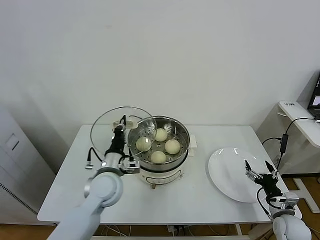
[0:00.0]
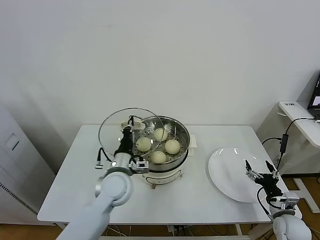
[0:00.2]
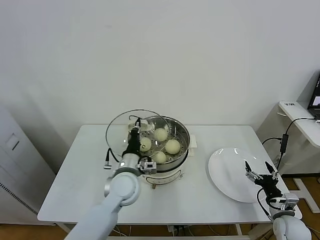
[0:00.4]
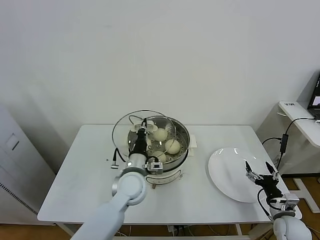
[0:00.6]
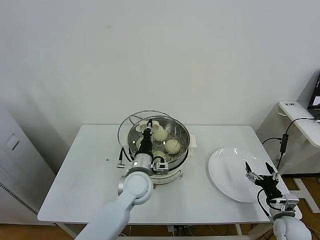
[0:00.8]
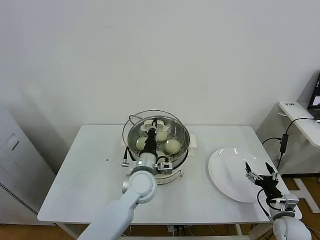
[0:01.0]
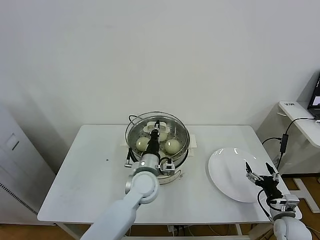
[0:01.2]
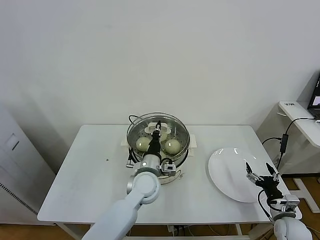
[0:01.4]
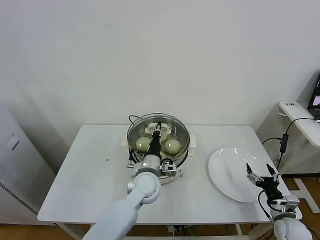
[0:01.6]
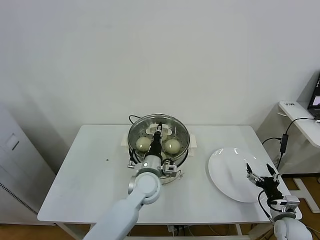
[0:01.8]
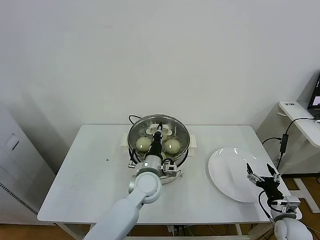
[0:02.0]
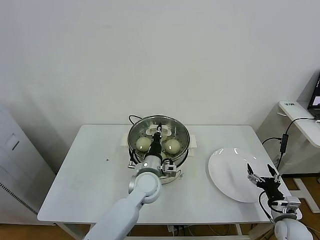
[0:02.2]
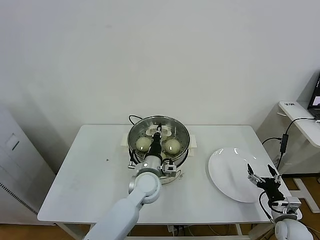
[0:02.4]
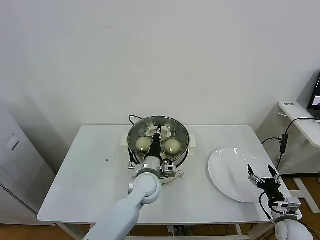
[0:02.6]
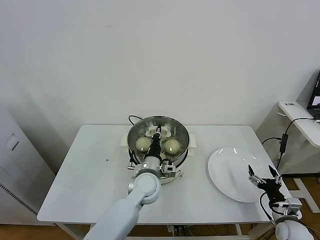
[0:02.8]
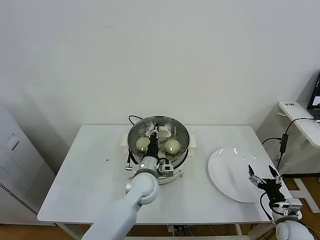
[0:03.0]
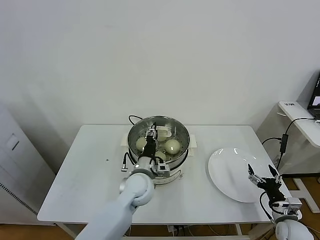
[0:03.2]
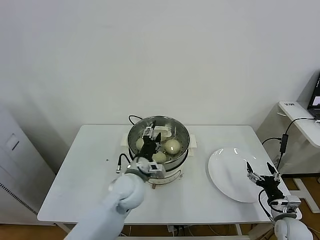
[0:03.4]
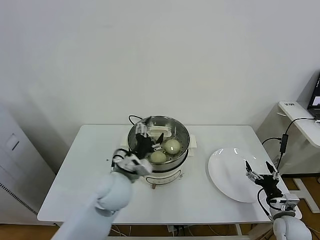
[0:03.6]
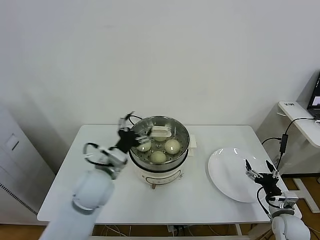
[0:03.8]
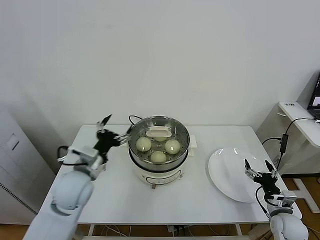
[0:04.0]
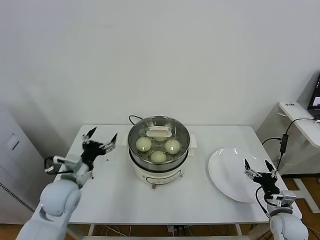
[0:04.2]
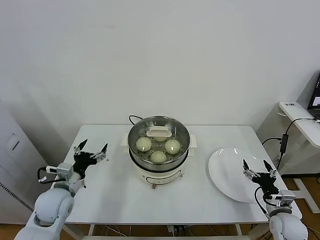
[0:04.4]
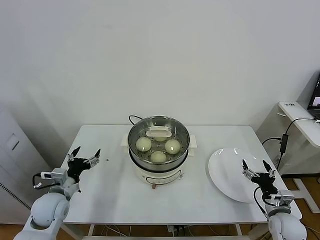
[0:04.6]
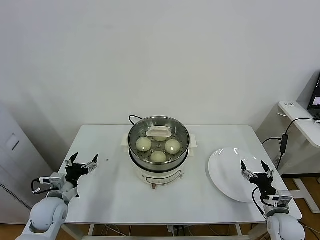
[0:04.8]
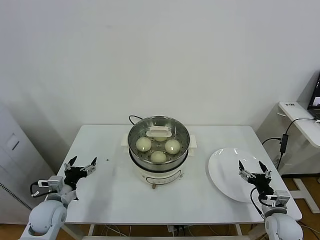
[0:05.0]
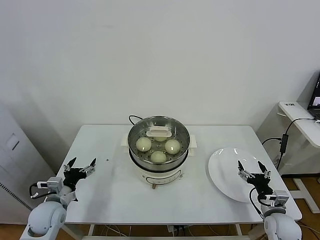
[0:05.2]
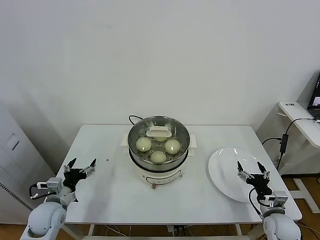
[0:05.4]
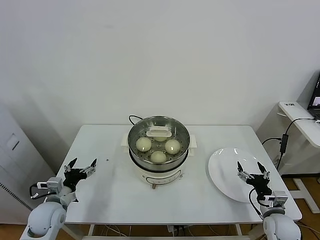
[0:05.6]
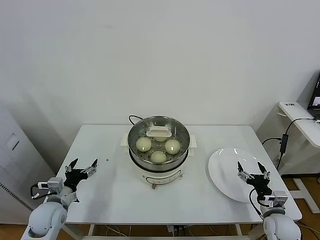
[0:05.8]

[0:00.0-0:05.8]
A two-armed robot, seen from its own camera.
Task of the whole recording: take steamed baozi put them in steamer.
Step, 0.0 to 3.6 s: Place the pot lid on the steamer with left gripper.
0.0 to 1.4 s: The left gripper moves to the right, about 10 cm.
1.4 to 2.8 s: The grippers make only small movements.
2.8 to 4.4 s: The left gripper shifts about 25 cm to the left, and opens its fingers.
4.4 to 5.8 s: The left gripper travels downward by some 5 cm.

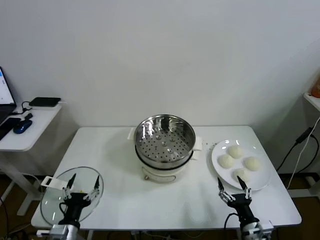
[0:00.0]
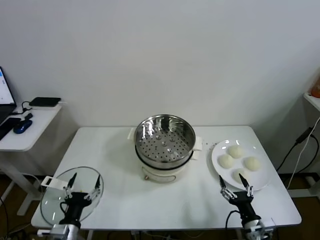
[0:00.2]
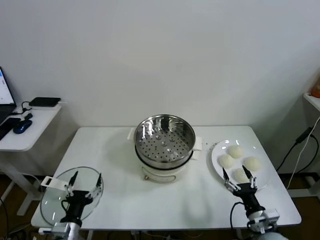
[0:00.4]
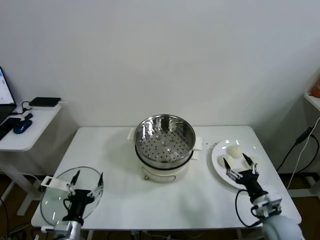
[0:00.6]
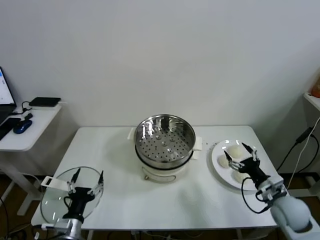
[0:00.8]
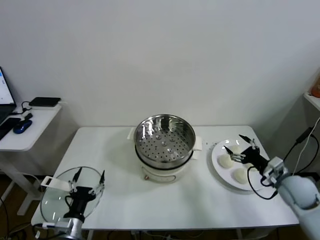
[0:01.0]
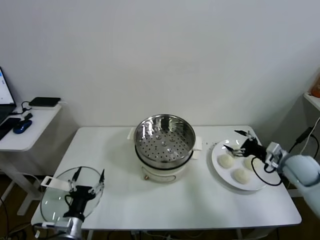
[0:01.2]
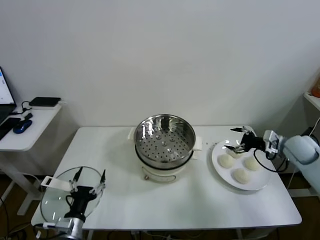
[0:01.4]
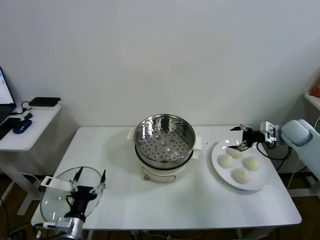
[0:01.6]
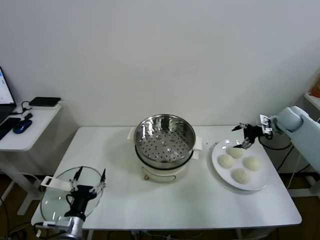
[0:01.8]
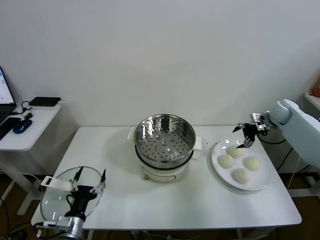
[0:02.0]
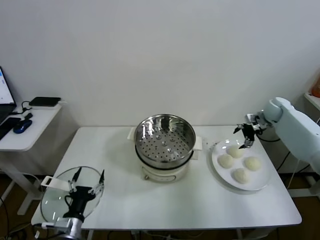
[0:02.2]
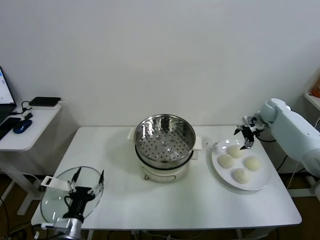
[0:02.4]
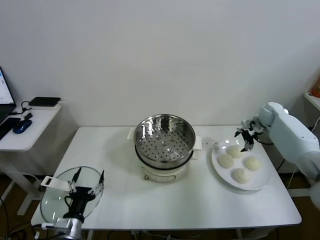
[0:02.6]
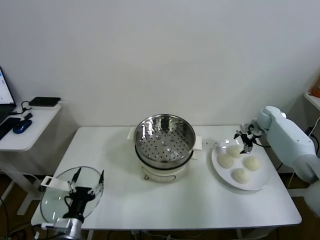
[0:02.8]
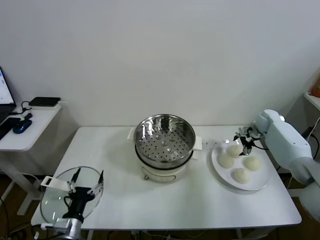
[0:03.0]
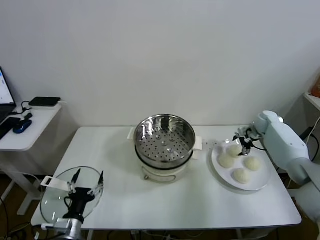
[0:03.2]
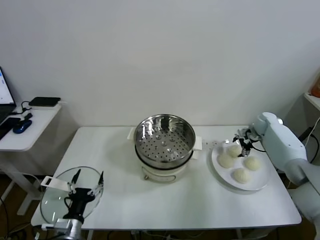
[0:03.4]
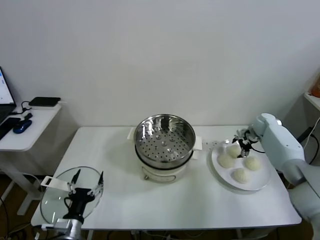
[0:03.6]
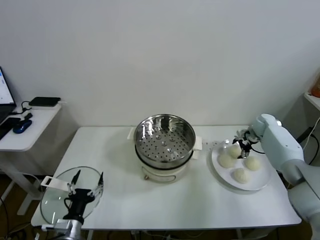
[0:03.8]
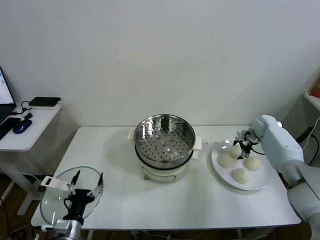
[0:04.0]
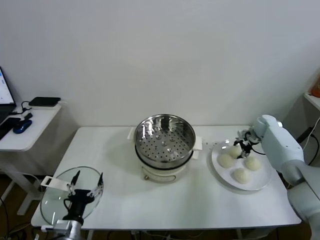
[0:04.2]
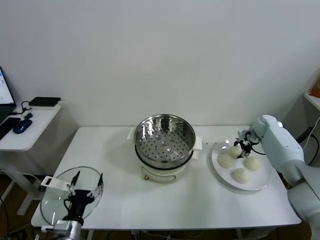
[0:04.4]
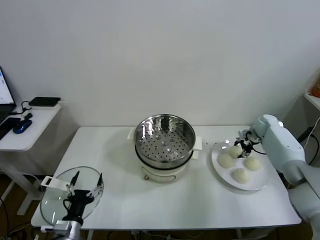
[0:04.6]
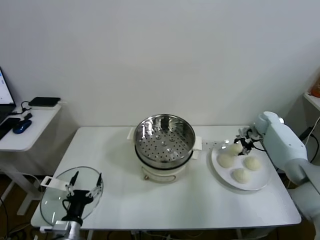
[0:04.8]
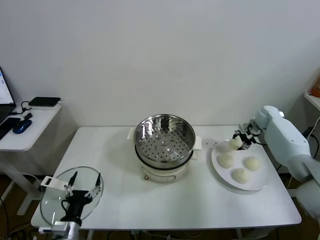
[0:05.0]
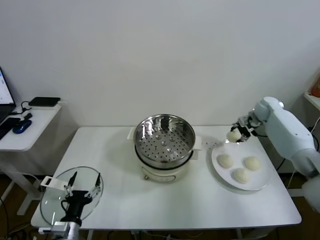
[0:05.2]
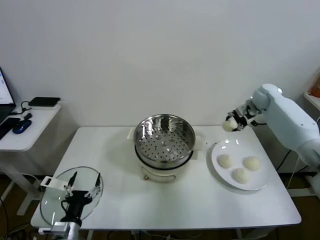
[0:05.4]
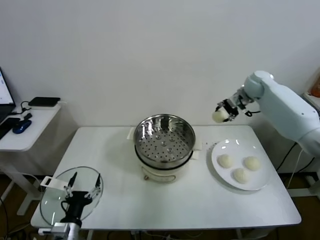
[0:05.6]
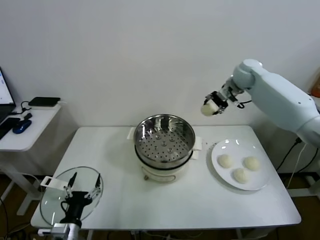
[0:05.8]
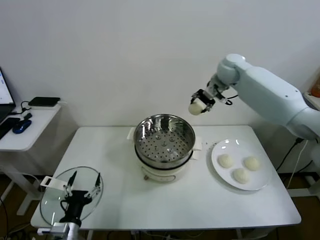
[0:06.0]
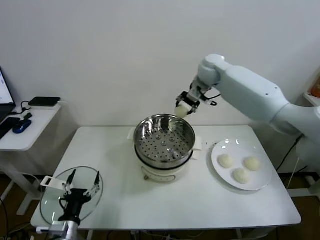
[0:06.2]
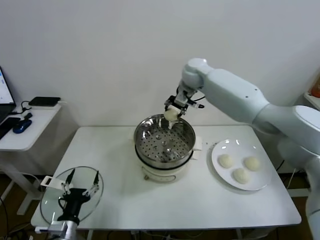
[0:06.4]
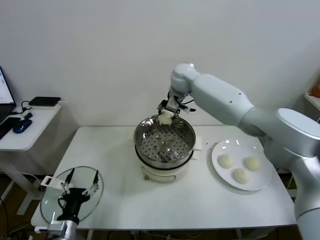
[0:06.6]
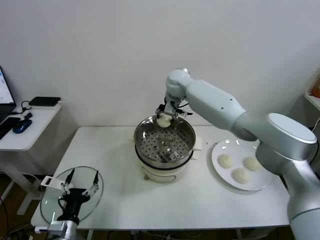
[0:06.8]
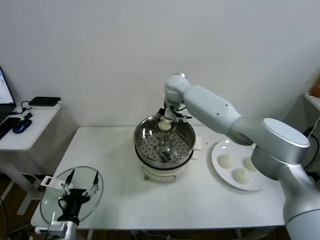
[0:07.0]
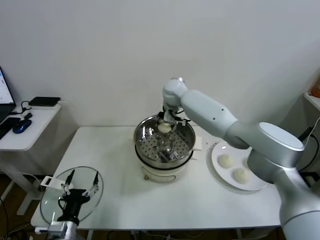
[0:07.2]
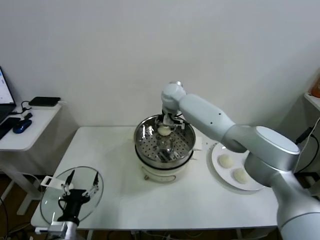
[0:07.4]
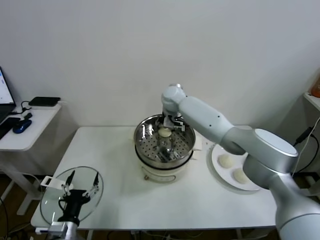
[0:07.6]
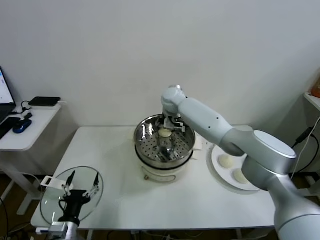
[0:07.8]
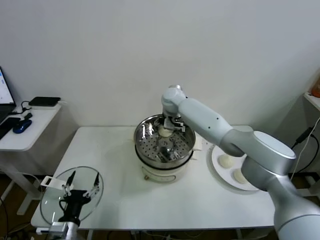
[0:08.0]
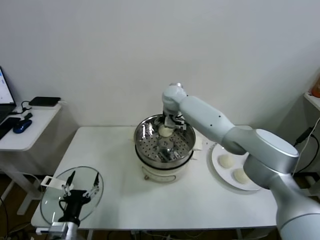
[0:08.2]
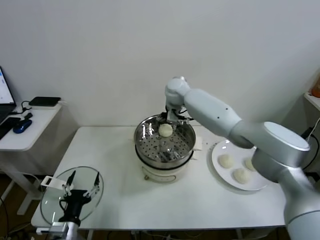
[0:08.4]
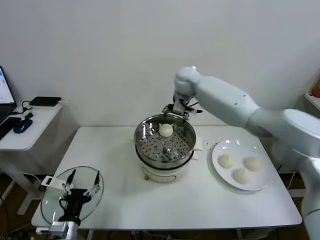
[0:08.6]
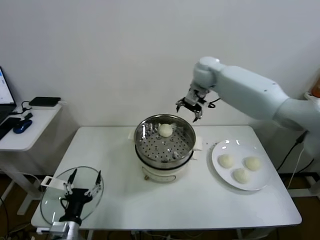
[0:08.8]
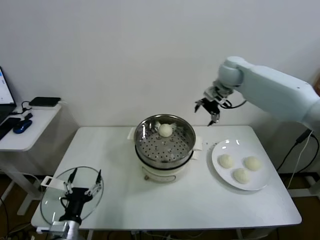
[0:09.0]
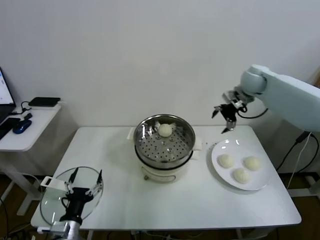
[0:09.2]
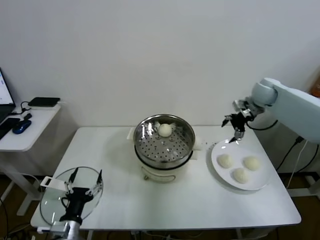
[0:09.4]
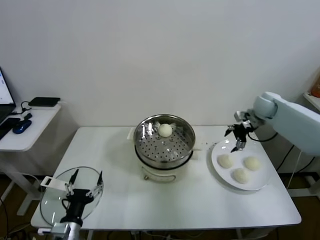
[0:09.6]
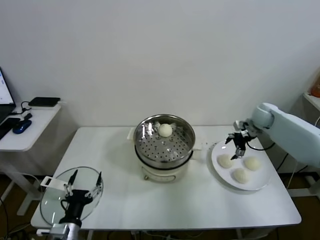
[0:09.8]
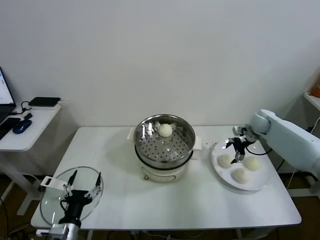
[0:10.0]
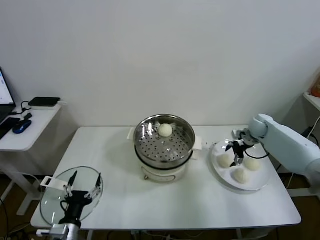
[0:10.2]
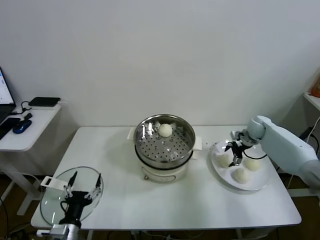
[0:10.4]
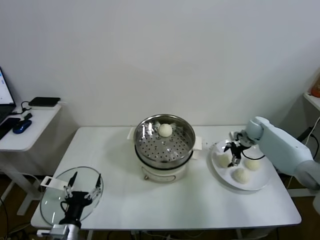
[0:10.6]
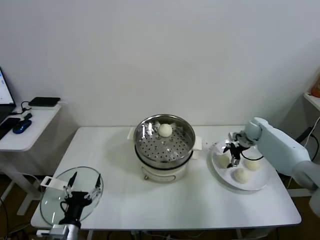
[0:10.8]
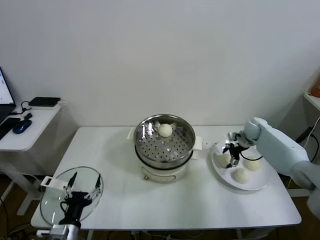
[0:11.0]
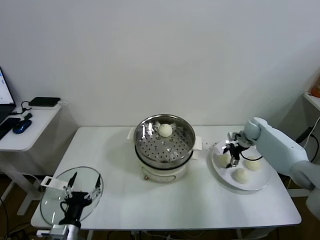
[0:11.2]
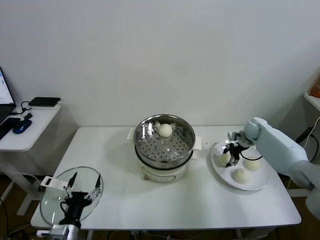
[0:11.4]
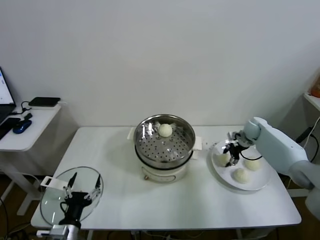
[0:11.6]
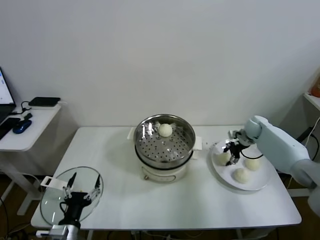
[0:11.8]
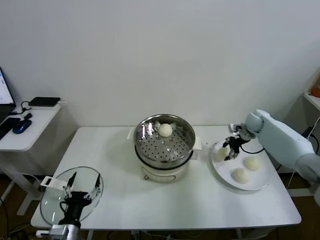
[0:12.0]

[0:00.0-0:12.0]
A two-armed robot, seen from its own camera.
Task of the whole recording: take steamed baozi put them in steamer.
Step, 0.0 to 4.6 s: Grasp the baozi in the plate with right gripper.
Step, 4.8 to 8.2 s: Place the baozi on the steamer with right gripper.
Step, 8.4 to 11.4 s: Grasp the baozi in the plate with right gripper.
1.6 to 3.0 s: The right gripper travels forward and downward by roughly 10 cm.
3.0 to 4.4 s: The right gripper closes.
4.4 to 6.0 s: The right gripper heads upward and to the left, covering about 35 cm.
6.0 to 7.6 s: The right gripper travels to the left and downward by about 20 cm.
7.6 to 9.0 s: The right gripper heads to the right and upward, covering about 25 cm, and opens its fingers.
9.0 to 10.4 s: The right gripper shifts approximately 25 cm downward and to the right.
10.4 to 12.0 s: The right gripper closes its fingers.

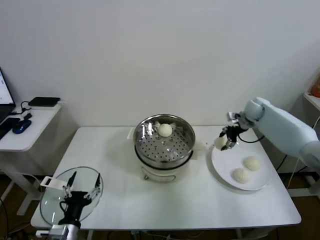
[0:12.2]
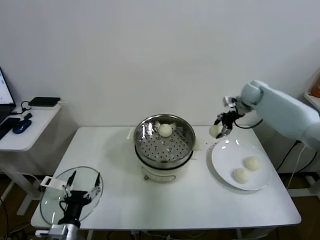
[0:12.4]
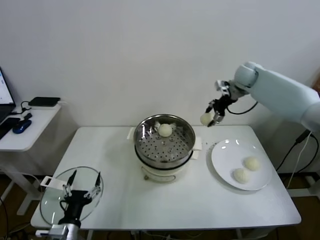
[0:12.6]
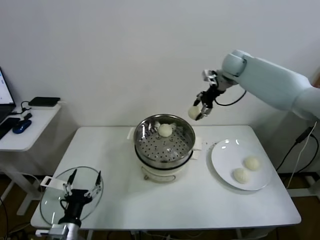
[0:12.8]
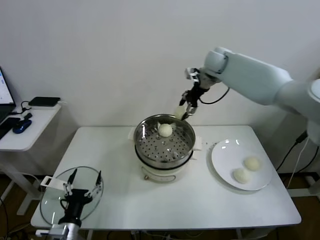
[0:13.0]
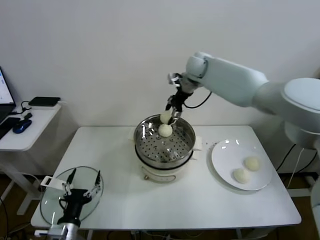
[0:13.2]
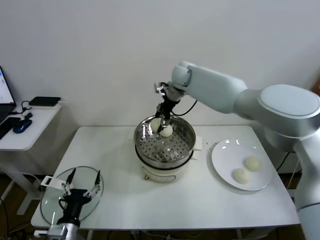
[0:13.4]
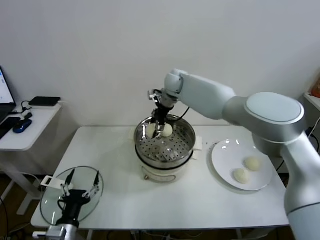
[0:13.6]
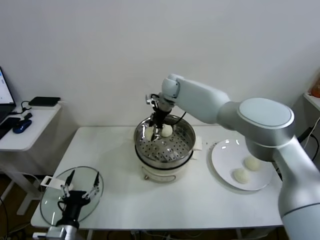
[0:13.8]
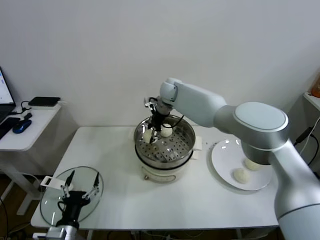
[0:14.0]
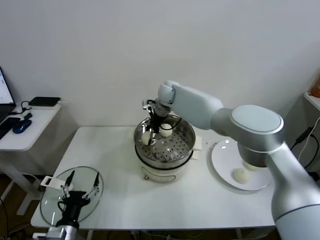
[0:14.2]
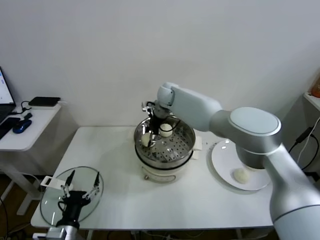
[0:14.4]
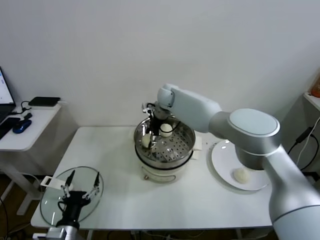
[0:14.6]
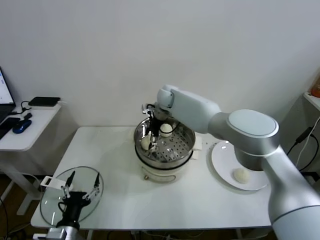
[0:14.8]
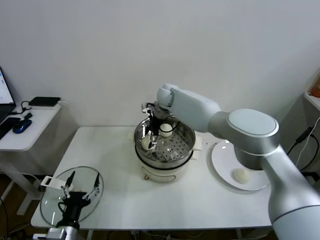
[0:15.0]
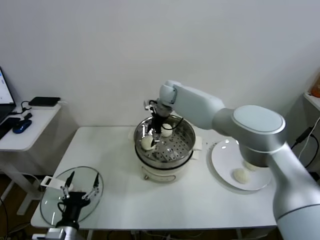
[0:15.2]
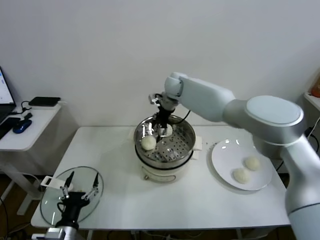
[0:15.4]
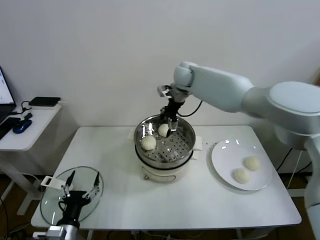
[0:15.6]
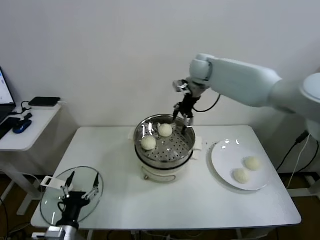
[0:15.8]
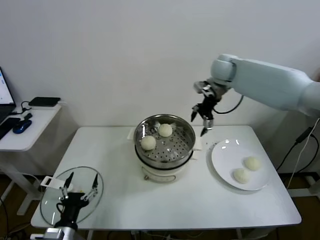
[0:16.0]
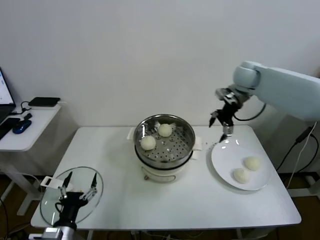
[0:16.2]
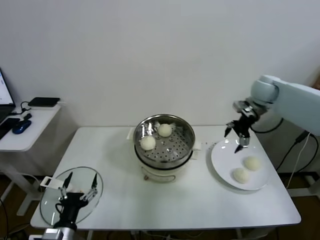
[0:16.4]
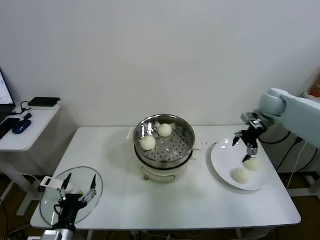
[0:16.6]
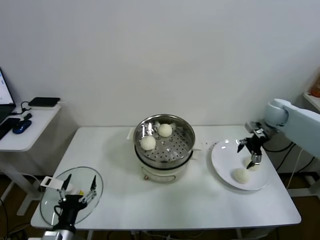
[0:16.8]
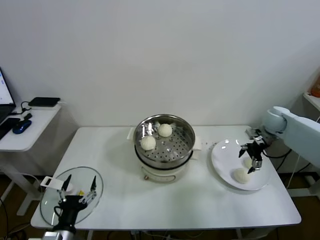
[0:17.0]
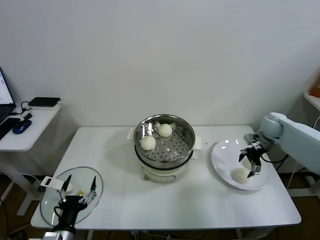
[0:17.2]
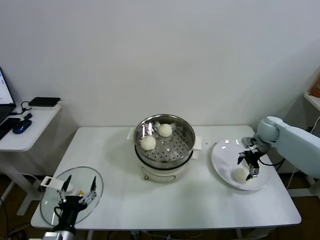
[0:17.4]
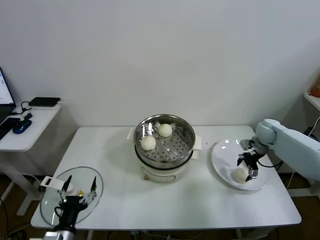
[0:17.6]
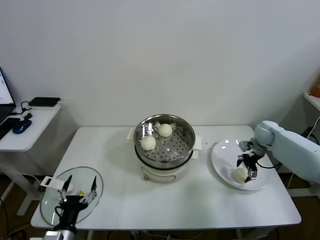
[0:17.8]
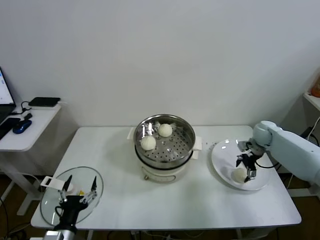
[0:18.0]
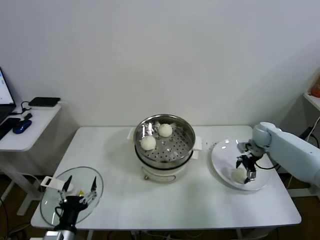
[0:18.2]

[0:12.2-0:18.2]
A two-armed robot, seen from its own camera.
Task of the whole recording: take steamed baozi put them in steamer.
Step, 12.2 to 15.0 s: Place the baozi on the steamer with right gripper.
12.2 to 13.8 s: The right gripper heads to the left, covering some 35 cm.
13.8 to 15.2 s: The right gripper opens its fingers.
15.2 to 16.6 s: The right gripper shifts some 35 cm to the right.
16.6 to 18.2 s: The right gripper heads downward, covering about 15 cm.
